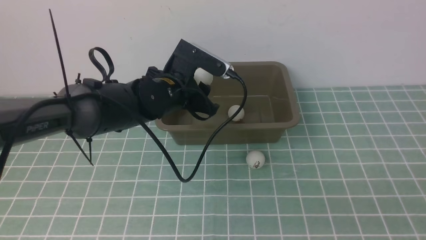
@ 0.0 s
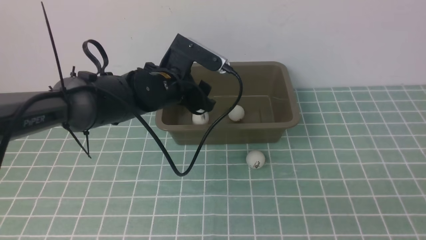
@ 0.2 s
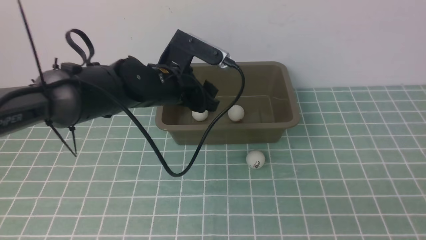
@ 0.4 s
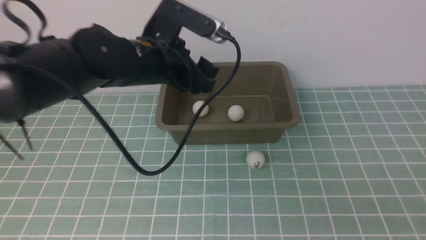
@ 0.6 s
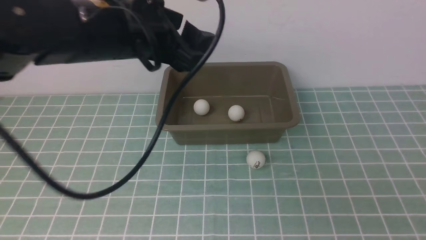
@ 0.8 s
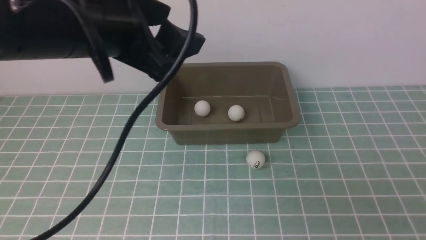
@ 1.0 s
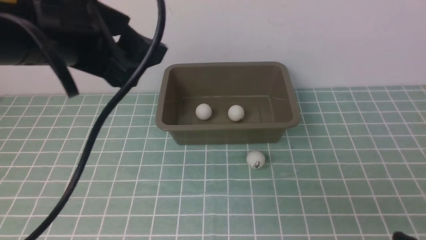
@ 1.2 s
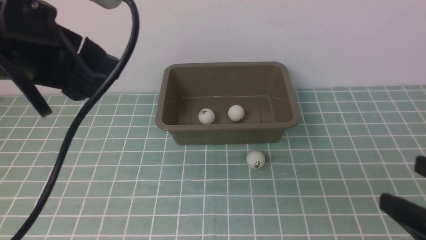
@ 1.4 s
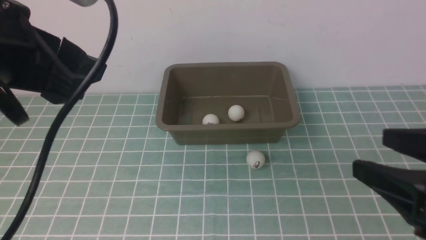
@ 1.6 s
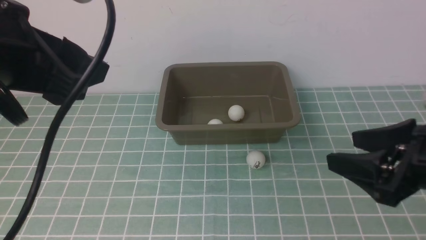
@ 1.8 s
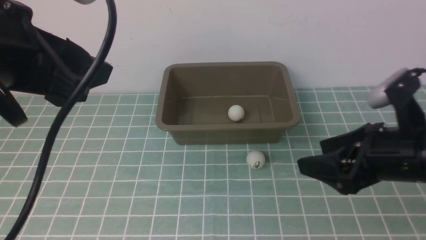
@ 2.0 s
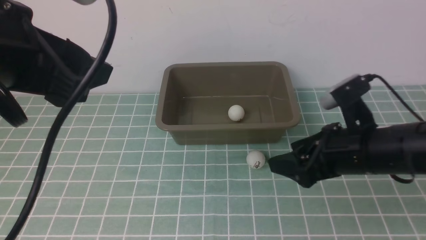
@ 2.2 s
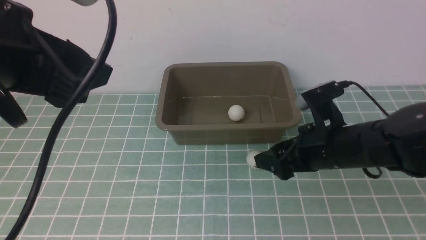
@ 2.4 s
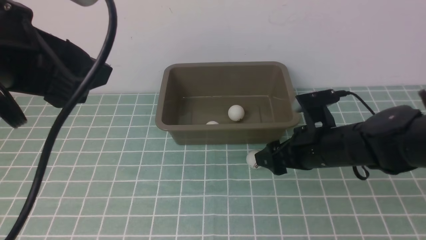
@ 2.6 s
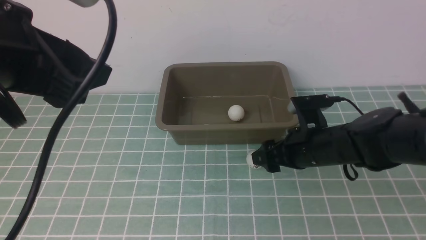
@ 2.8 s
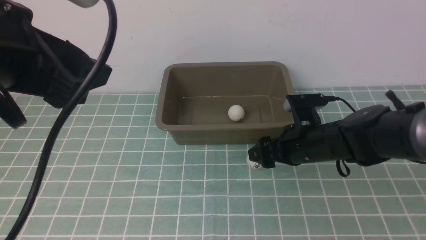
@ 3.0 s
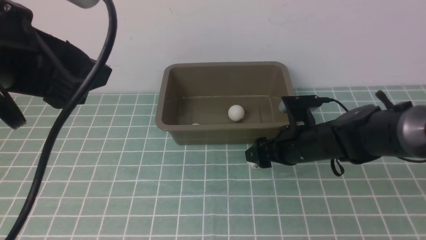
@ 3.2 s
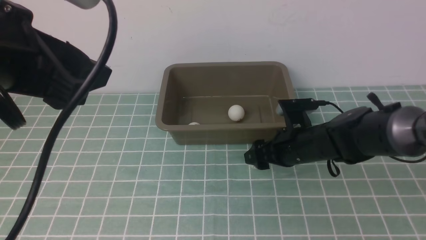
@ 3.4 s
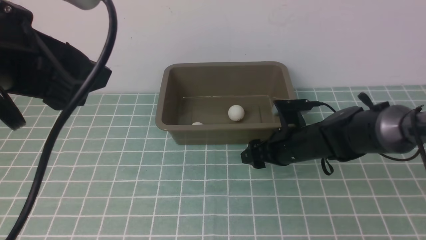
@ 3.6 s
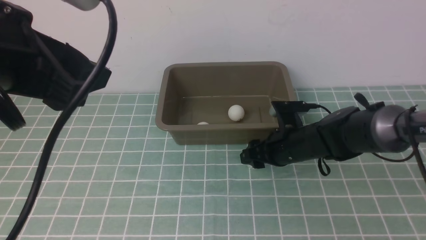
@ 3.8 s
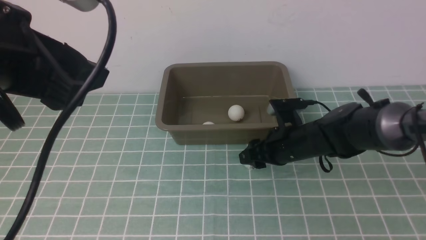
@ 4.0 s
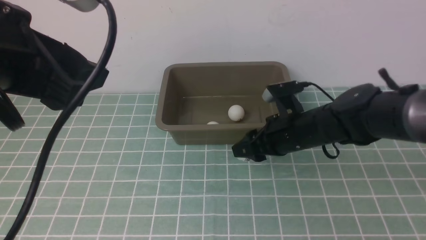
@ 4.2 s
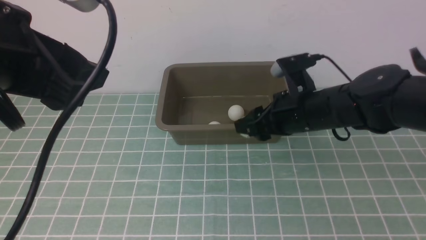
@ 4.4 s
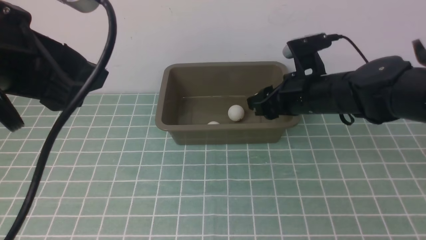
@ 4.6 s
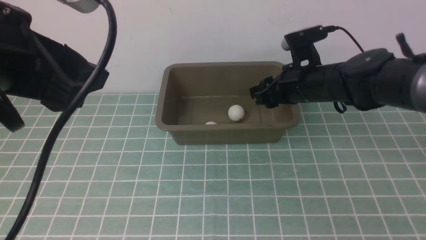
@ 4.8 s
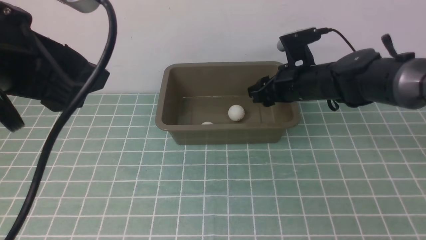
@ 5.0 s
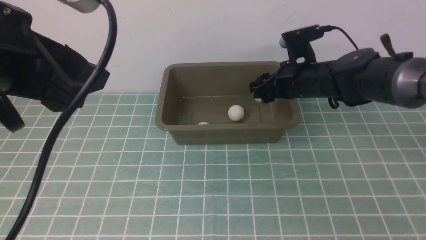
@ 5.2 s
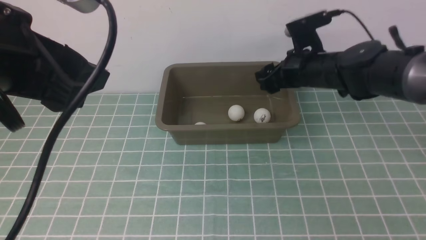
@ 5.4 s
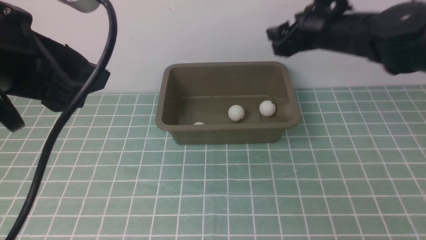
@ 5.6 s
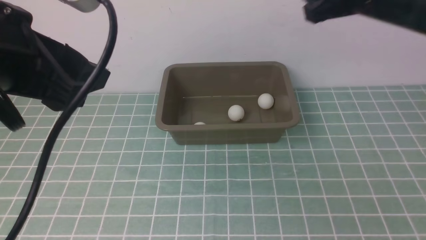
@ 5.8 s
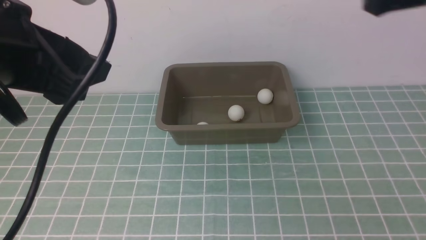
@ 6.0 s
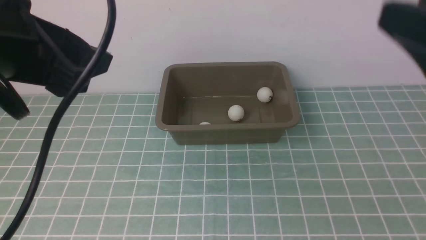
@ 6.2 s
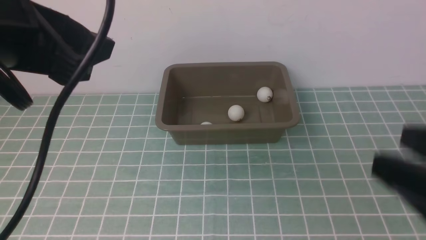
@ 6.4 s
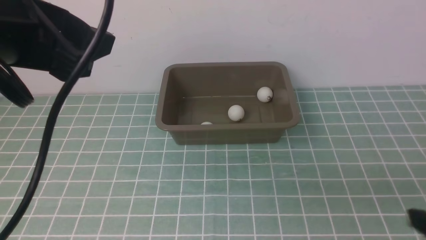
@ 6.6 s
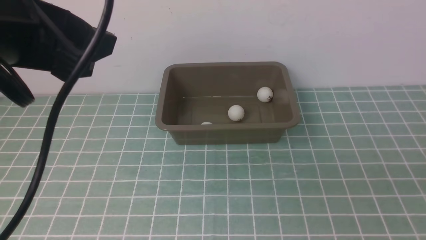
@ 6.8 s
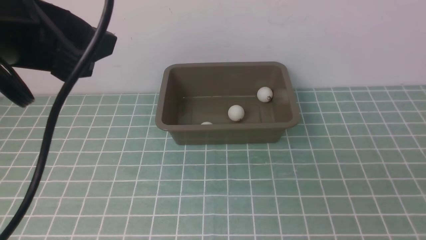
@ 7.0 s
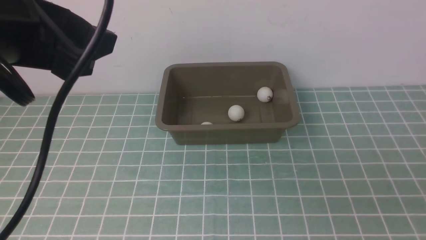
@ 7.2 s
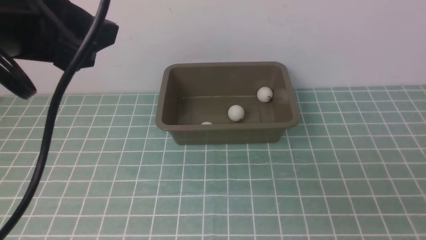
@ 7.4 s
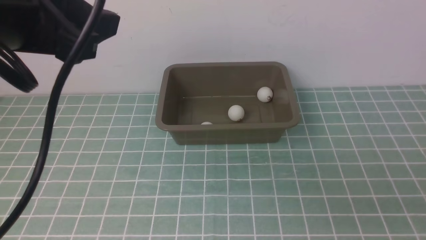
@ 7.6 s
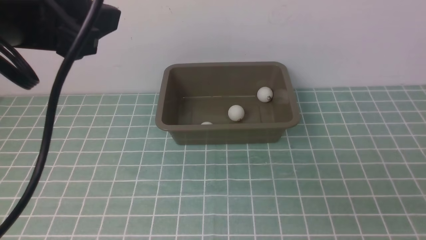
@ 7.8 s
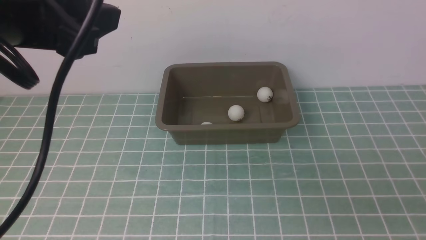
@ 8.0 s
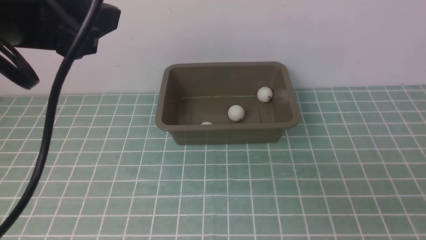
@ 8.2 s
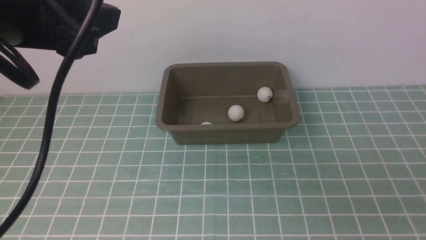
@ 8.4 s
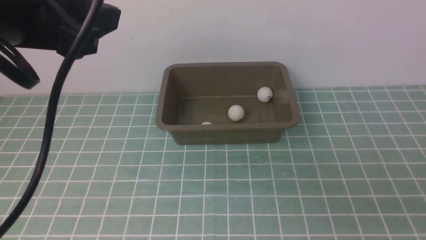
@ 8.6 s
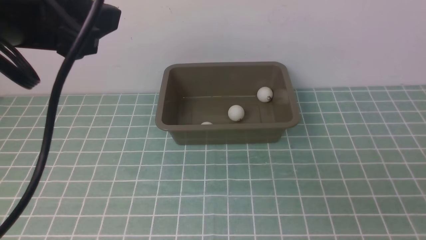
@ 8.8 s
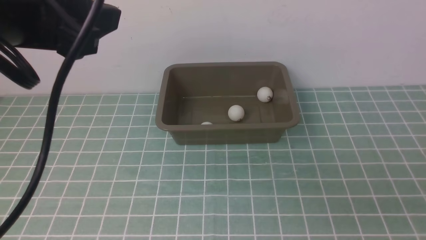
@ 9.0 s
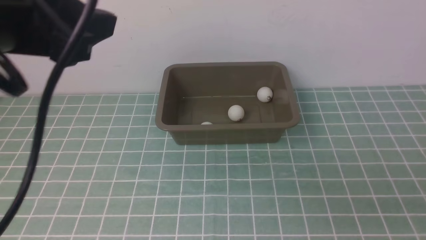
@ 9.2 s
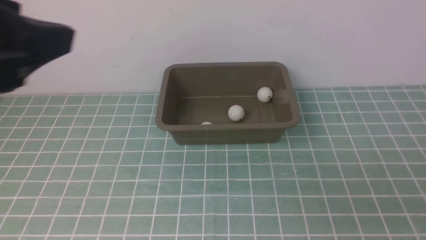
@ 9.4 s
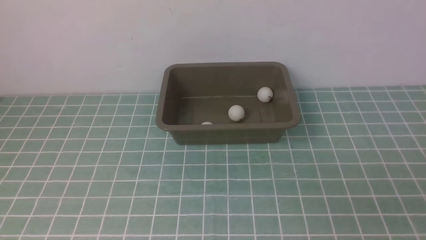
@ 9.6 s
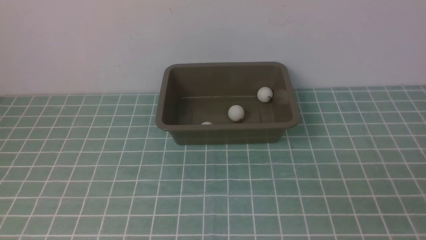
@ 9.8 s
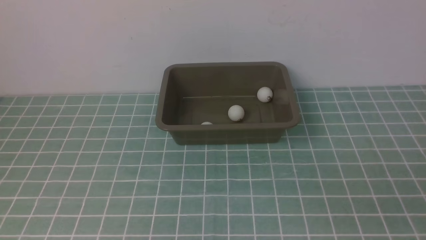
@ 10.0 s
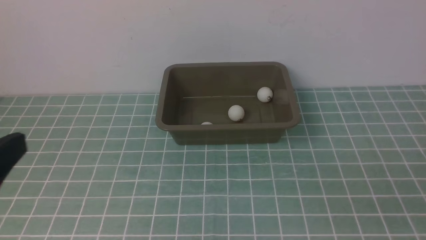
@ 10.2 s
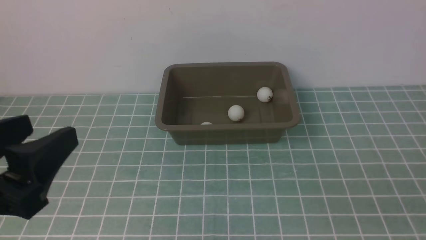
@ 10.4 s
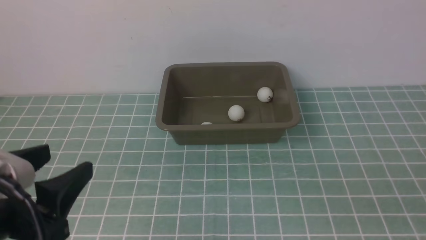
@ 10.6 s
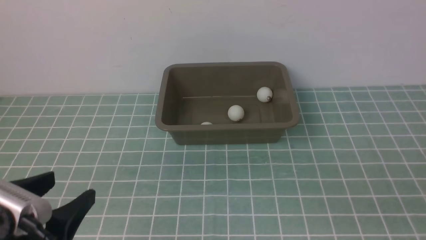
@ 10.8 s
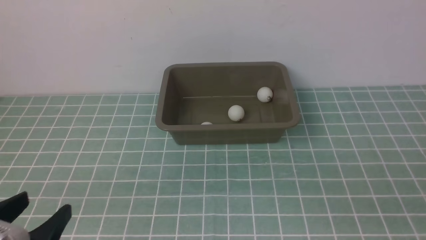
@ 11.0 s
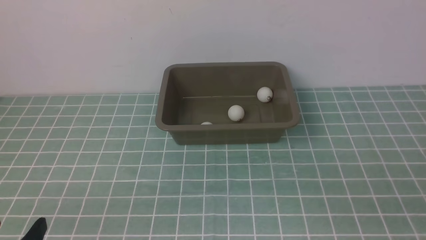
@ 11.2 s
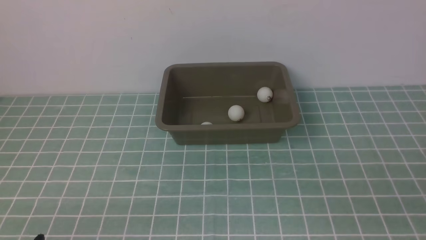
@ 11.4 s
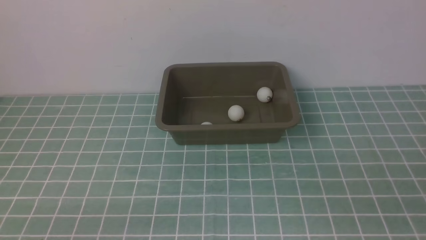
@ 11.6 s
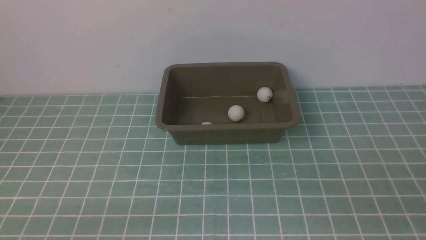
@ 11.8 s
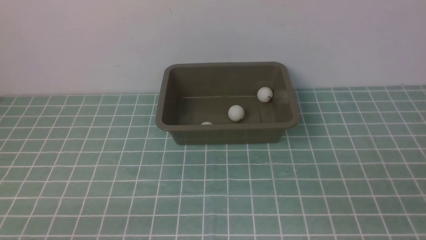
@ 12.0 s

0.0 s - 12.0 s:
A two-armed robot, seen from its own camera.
Step, 0.6 s - 4.0 s: use the right arm to clamp the table tennis ball closest to it.
Step, 4.2 s - 5.4 s: use the right arm to put the table tennis ball into the box.
0.0 s - 1.6 s: The right gripper heads forward, covering about 10 cm; the left gripper travels upward, backward and to the left by some 30 cm, and opens its fingers.
1.6 s - 3.0 s: The right gripper is displaced forward, downward and to the left by some 25 cm.
3.0 s - 4.4 s: The right gripper closes.
4.4 s - 6.0 s: The right gripper moves upward, backward and to the right, roughly 25 cm, and opens its fingers.
6.0 s - 7.6 s: The right gripper moves downward, backward and to the right, roughly 25 cm, and closes up.
7.6 s - 9.0 s: The grippers make only small movements.
9.0 s - 10.4 s: The left gripper is displaced downward and backward by about 15 cm.
10.4 s - 12.0 s: The left gripper moves downward, roughly 15 cm.

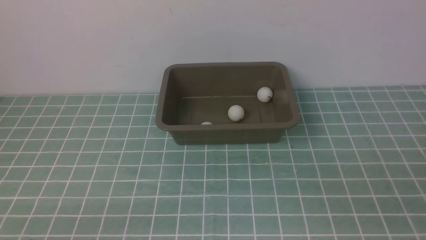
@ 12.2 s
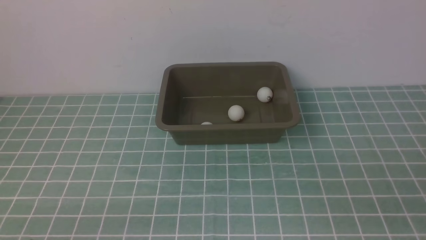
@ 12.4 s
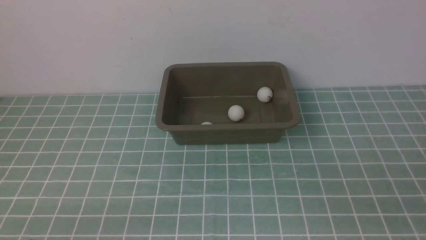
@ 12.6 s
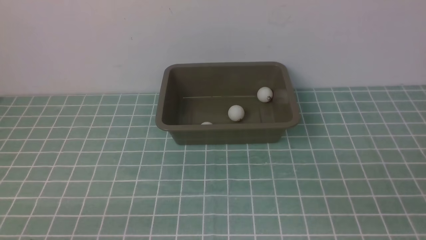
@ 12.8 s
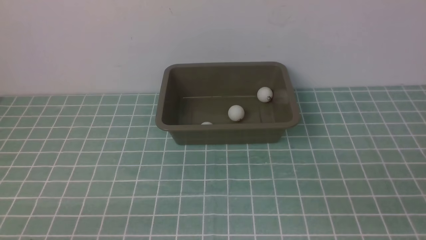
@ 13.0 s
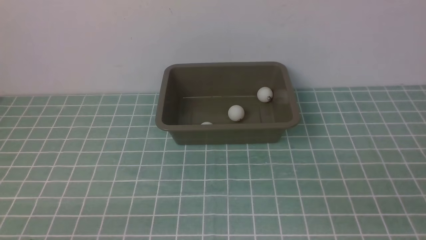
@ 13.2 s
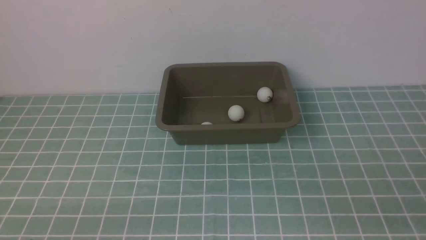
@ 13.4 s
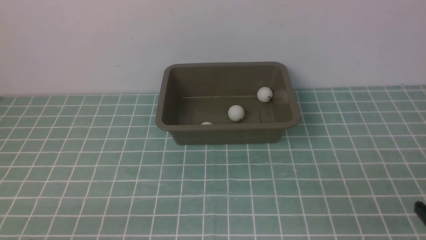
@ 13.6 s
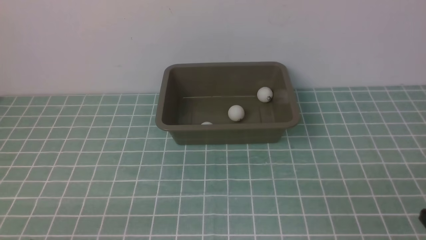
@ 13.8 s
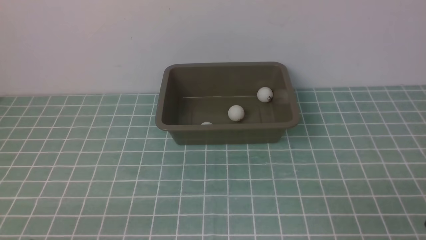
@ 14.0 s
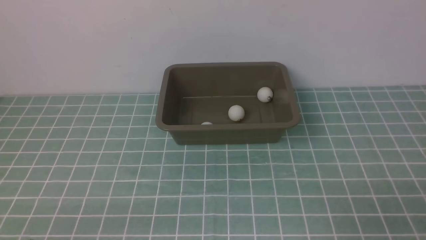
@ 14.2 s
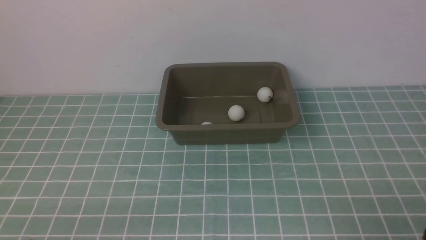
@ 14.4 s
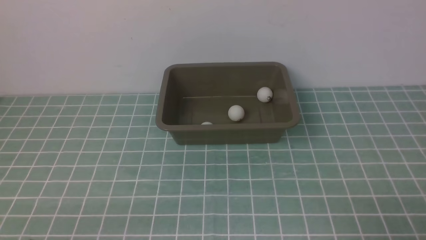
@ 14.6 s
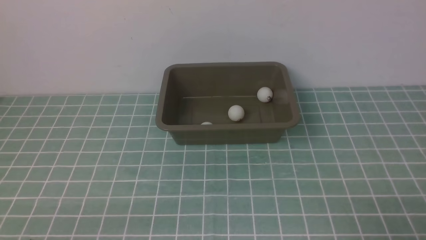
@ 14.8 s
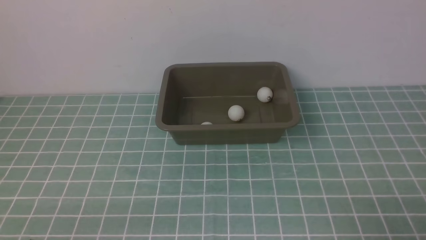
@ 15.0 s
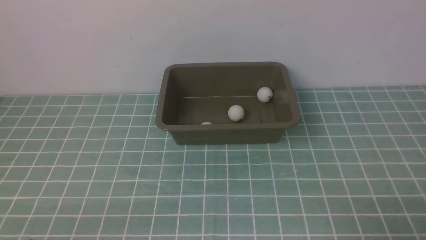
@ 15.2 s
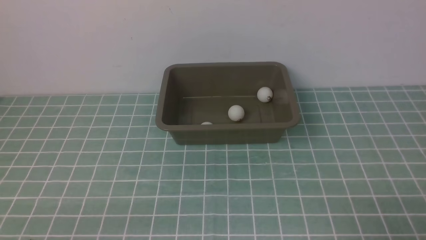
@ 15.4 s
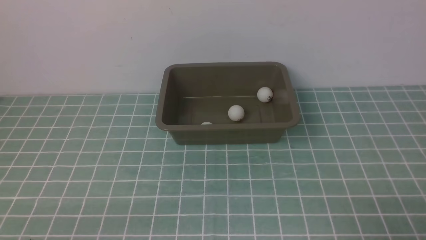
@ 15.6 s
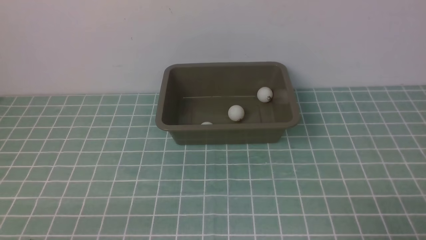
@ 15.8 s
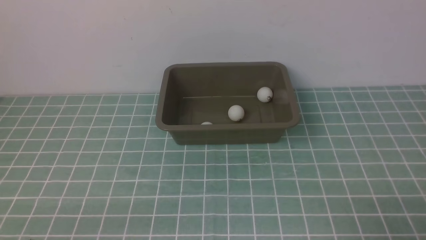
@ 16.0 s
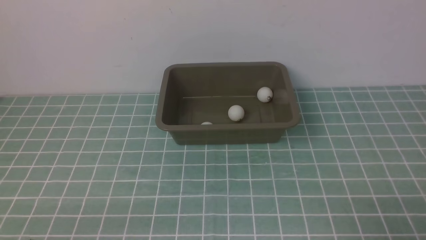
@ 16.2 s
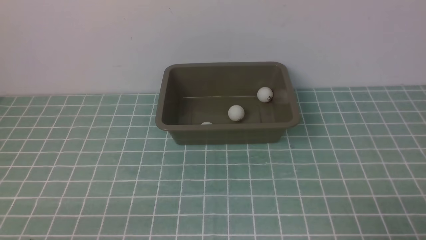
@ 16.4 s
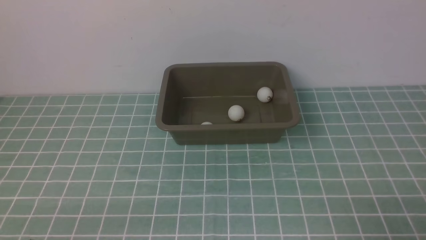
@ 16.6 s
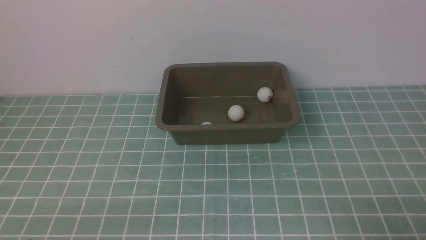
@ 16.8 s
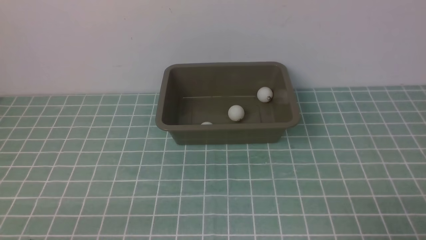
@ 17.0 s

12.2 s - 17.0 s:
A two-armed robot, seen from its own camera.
15.4 s - 17.0 s: Both grippers stay about where they are.
